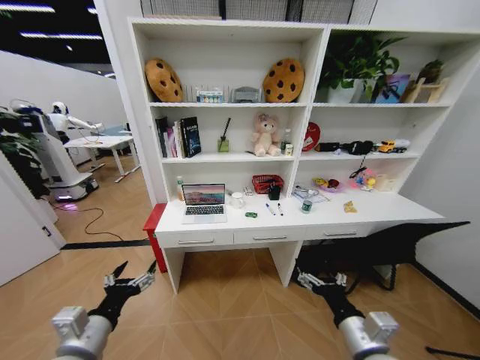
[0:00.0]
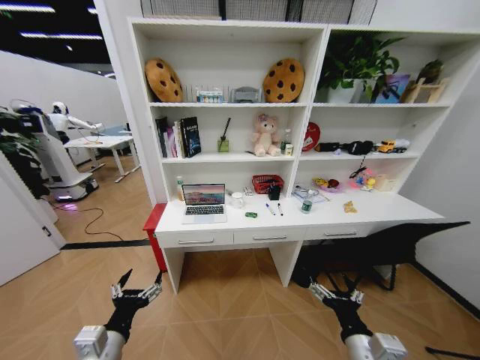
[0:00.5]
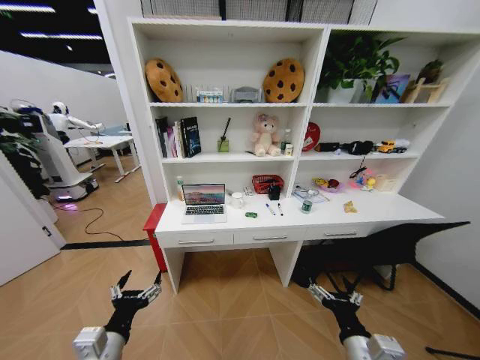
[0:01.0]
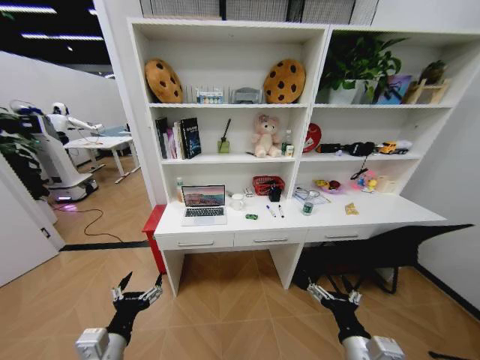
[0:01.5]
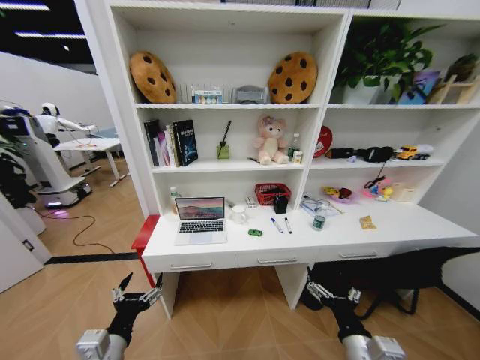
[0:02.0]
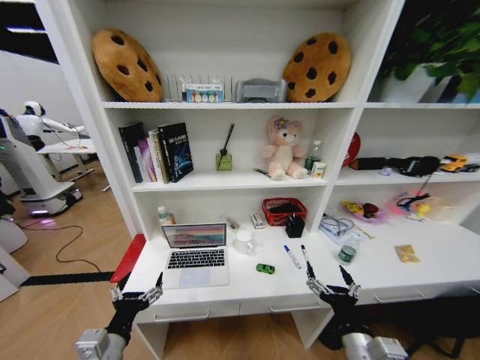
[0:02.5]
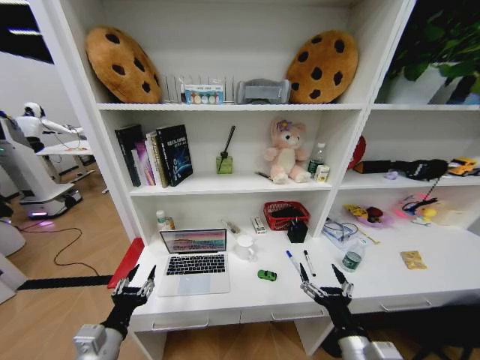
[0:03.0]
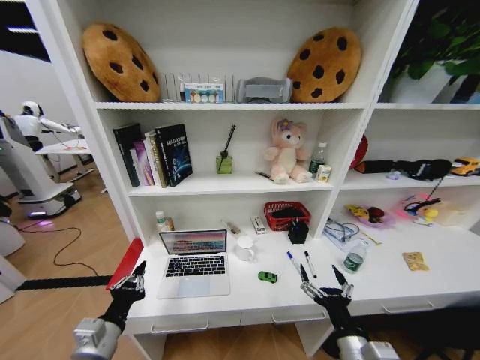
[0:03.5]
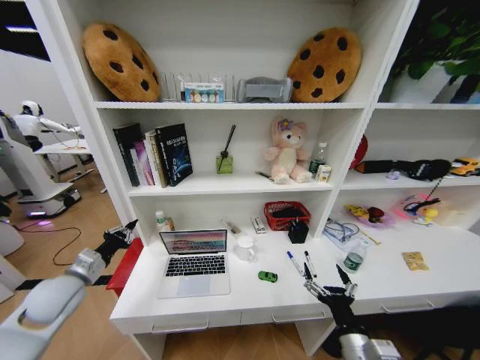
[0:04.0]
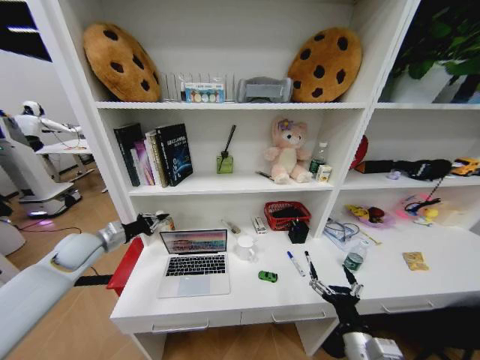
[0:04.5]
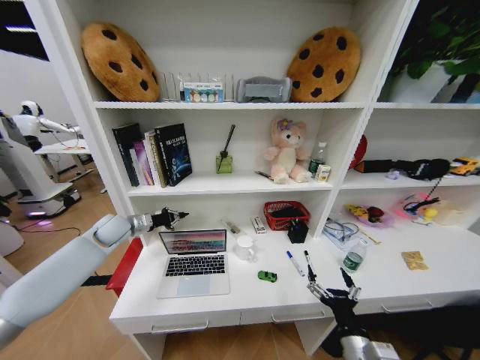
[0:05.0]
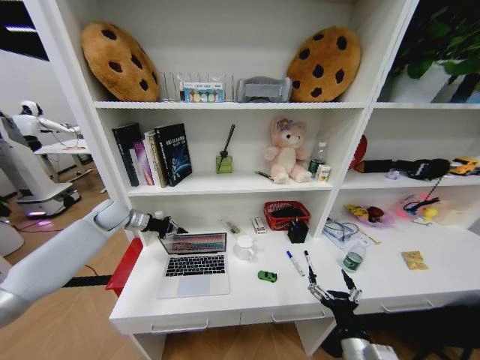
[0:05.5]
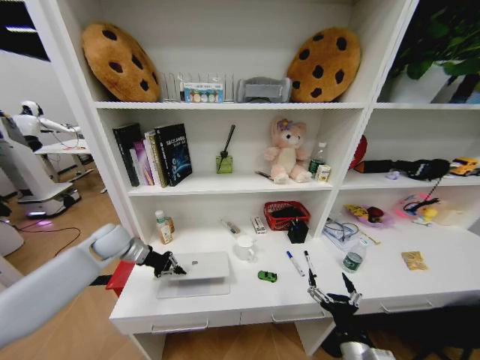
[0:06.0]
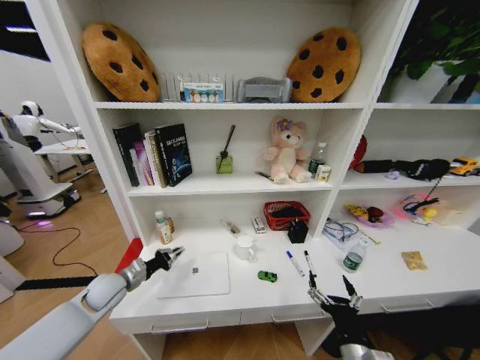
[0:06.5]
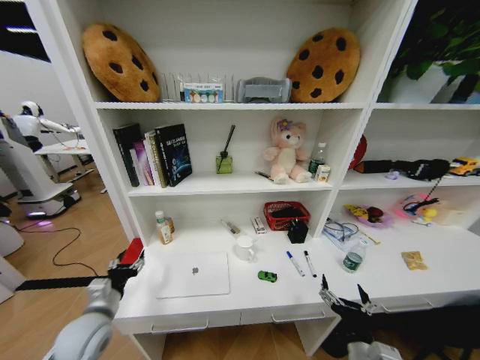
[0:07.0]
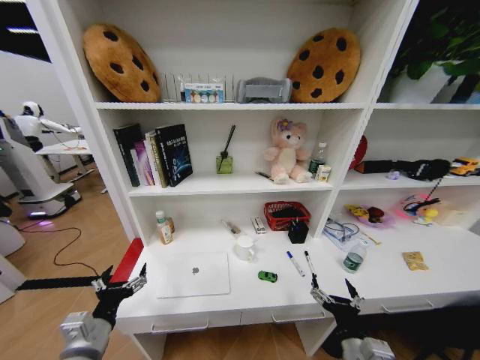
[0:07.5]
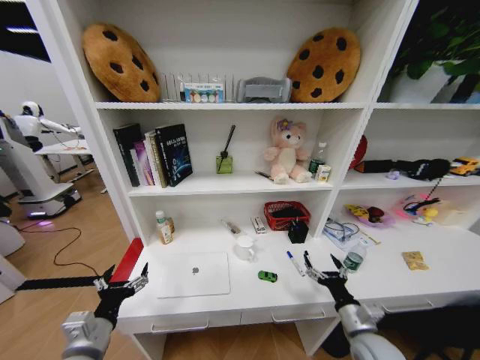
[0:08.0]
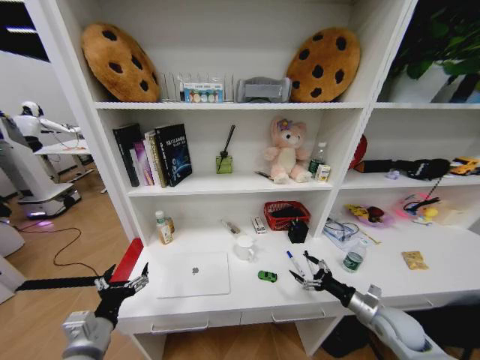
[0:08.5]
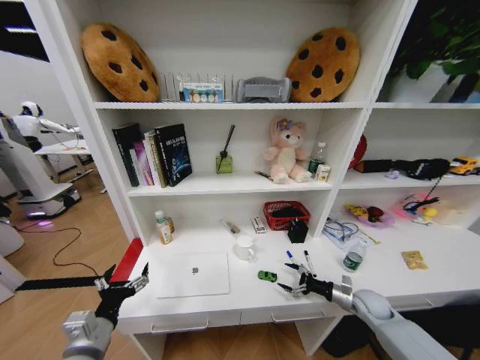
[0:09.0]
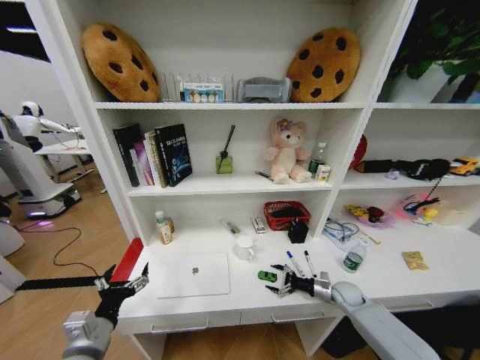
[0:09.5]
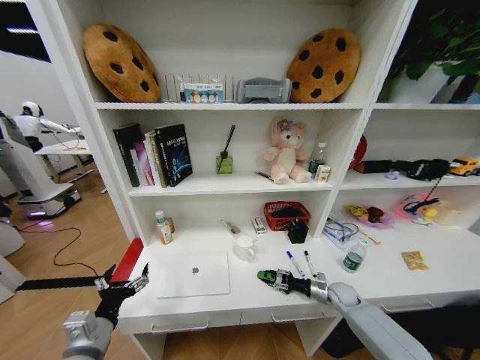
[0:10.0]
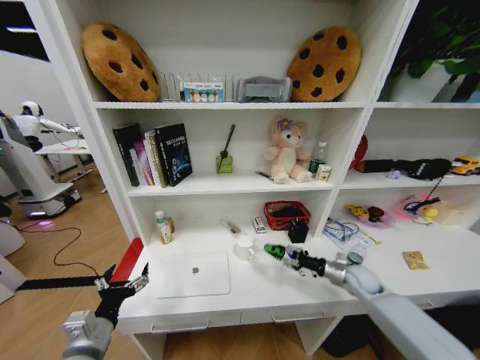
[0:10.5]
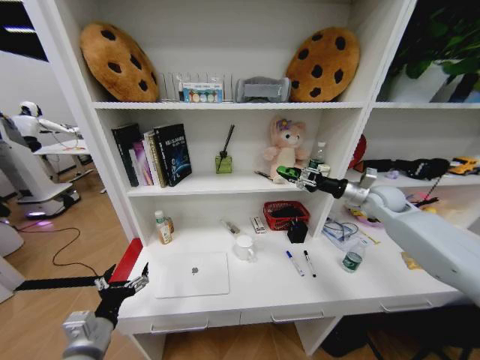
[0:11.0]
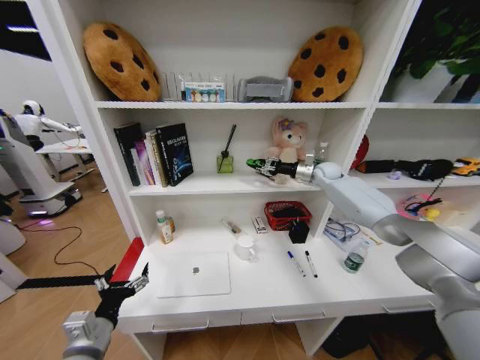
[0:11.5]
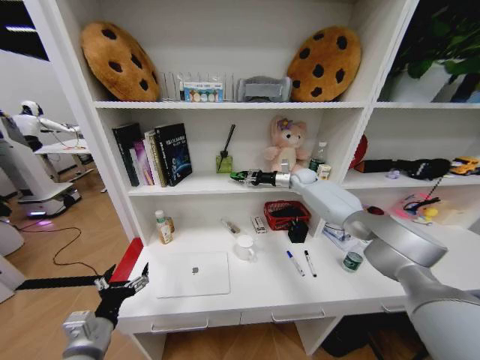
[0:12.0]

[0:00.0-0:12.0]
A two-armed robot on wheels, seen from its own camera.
Task of the whole recording: Organize the objects on the table.
0:02.0 to 0:04.0: The left gripper heads forward and to the left, covering some 20 cm, and closes up.
0:04.0 to 0:06.0: The left gripper goes approximately 20 cm forward.
0:06.0 to 0:08.0: The left gripper shifts approximately 30 cm backward, and opens. The right gripper shifts about 10 cm forward and to the right.
0:08.0 to 0:10.0: The right gripper travels forward, downward and to the right by roughly 25 cm, and closes.
0:10.0 to 0:12.0: The right gripper moves upward and forward, roughly 40 cm.

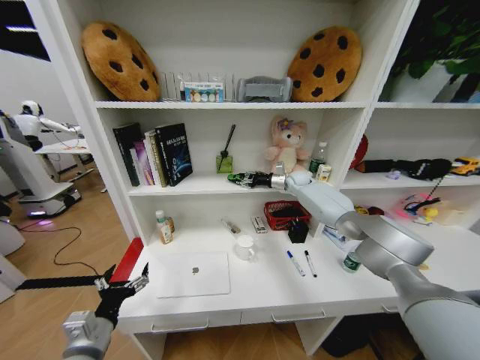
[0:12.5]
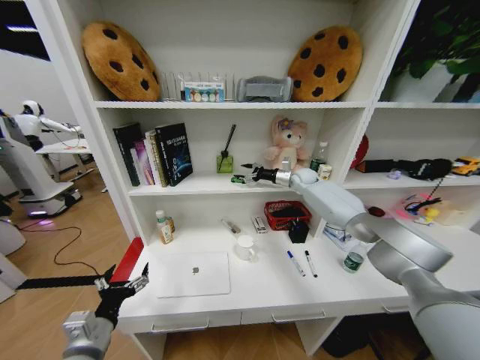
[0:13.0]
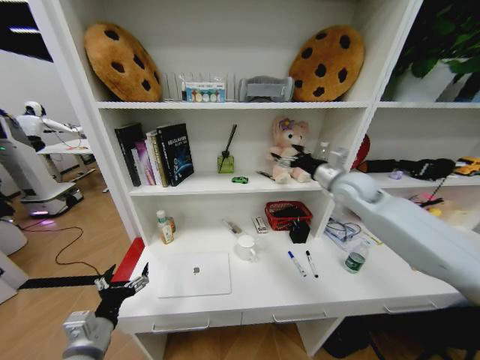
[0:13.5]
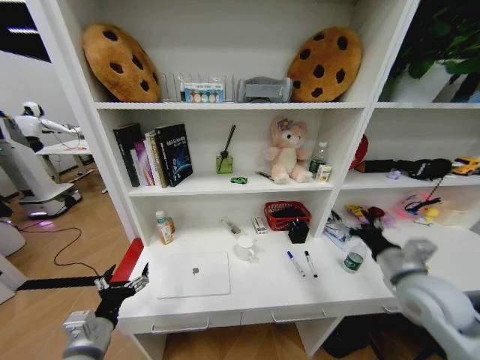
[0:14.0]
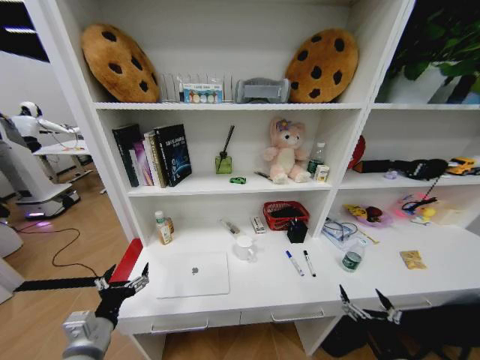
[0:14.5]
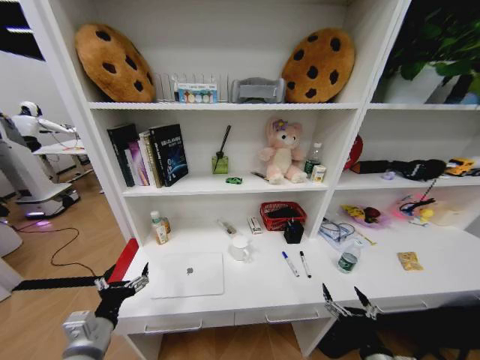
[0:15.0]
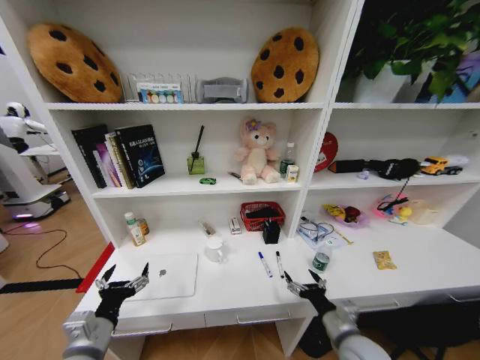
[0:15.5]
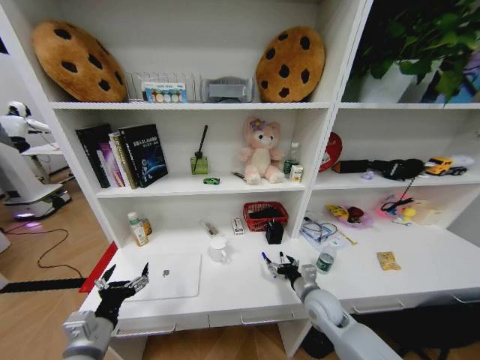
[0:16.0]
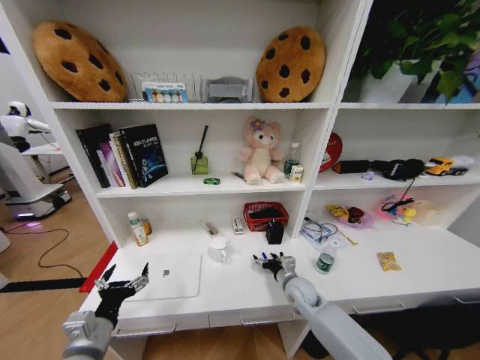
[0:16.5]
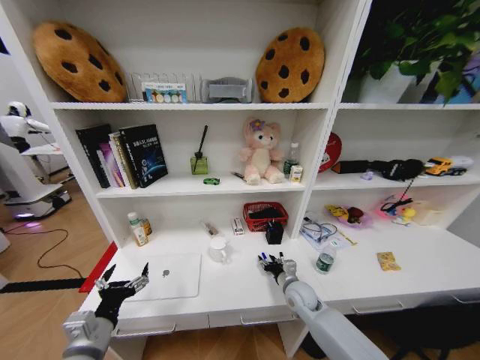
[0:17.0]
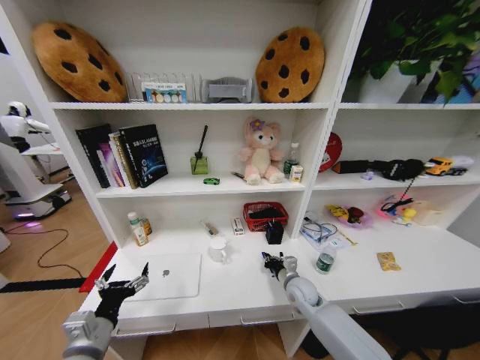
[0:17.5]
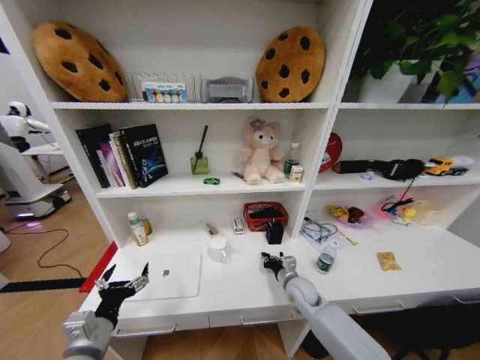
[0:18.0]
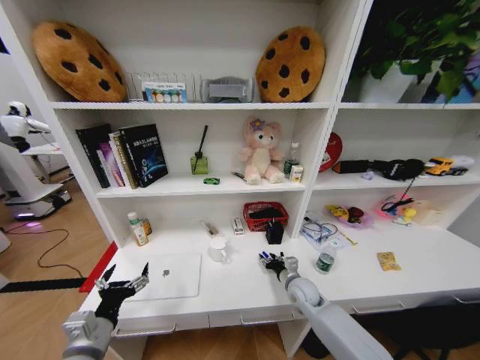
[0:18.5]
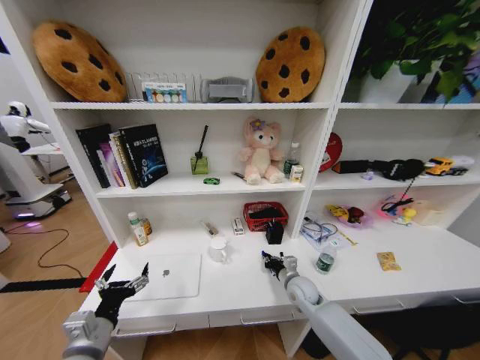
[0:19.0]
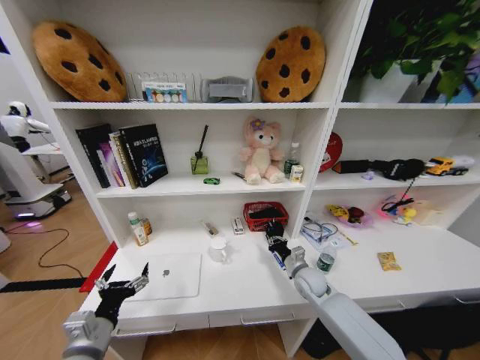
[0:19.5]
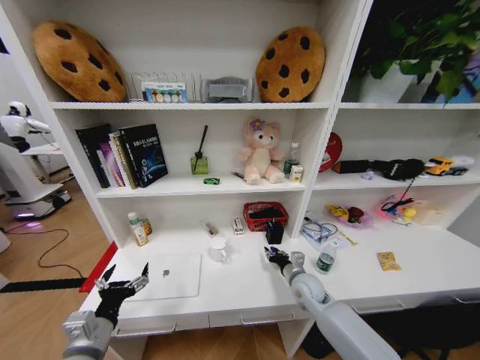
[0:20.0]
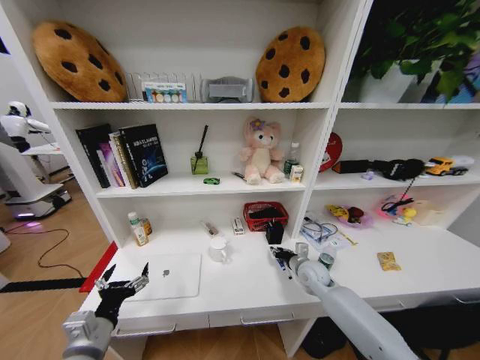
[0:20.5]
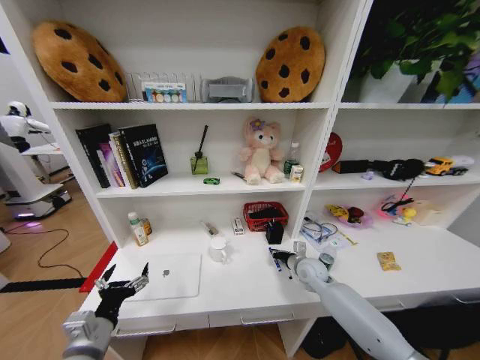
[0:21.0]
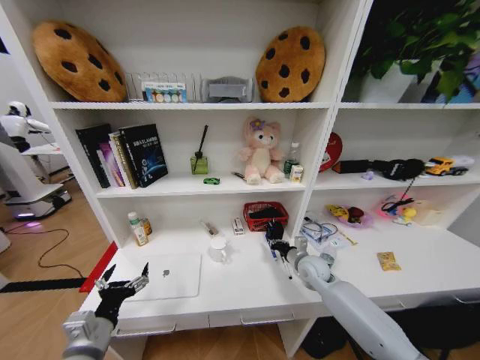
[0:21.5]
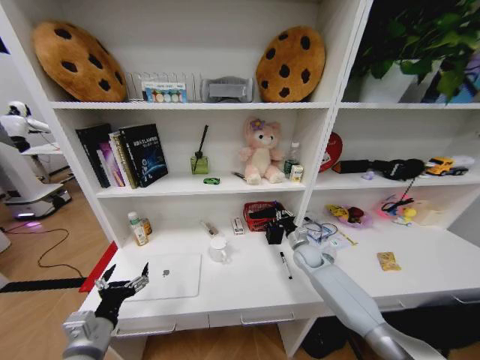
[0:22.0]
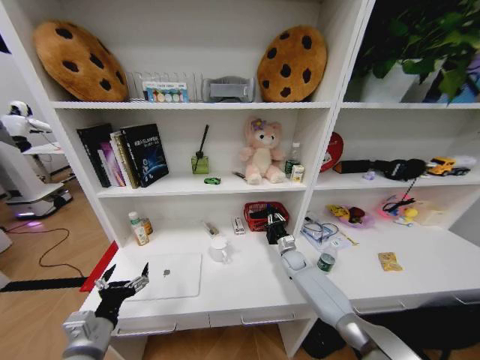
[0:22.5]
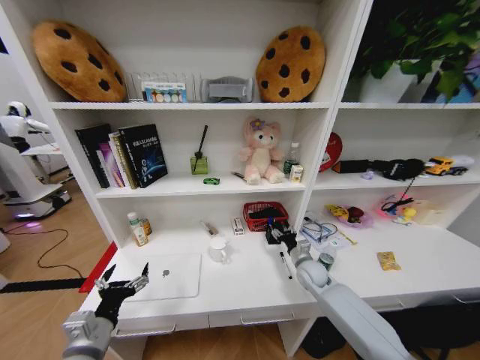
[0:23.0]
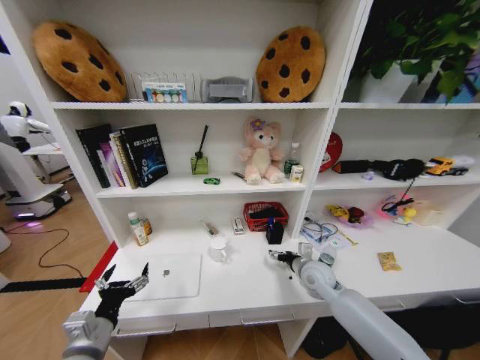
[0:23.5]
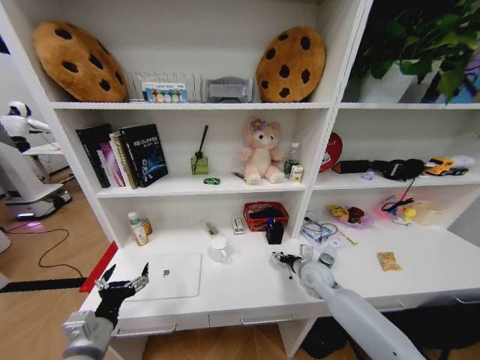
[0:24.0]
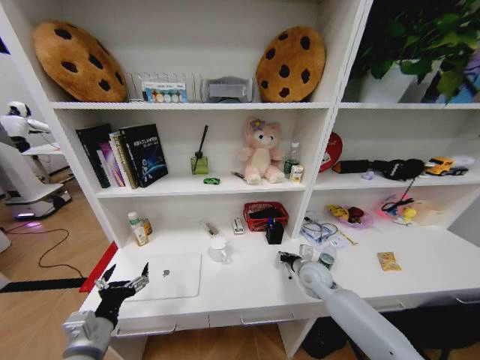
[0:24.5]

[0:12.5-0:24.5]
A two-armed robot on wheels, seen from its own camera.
Task of the whole recording: Organize the objects on the table.
0:12.5 to 0:14.5: The right gripper travels backward by approximately 60 cm, and opens.
0:14.5 to 0:16.5: The right gripper is displaced forward and to the left by roughly 30 cm.
0:16.5 to 0:18.5: The right gripper closes its fingers.
0:18.5 to 0:20.5: The right gripper moves some 5 cm, and closes, then reopens.
0:20.5 to 0:22.5: The right gripper moves forward and downward, approximately 15 cm.
0:22.5 to 0:24.5: The right gripper moves backward and upward, about 15 cm, and opens and closes again.

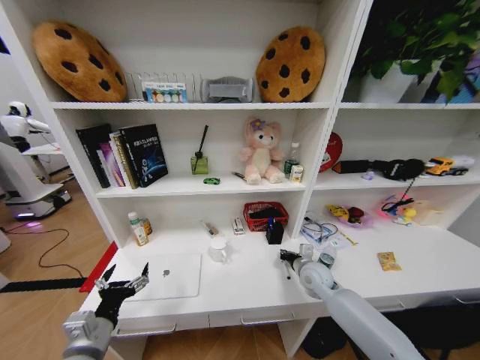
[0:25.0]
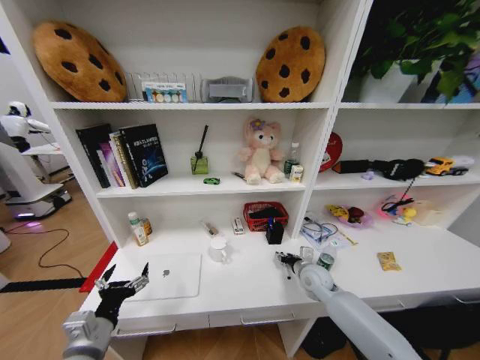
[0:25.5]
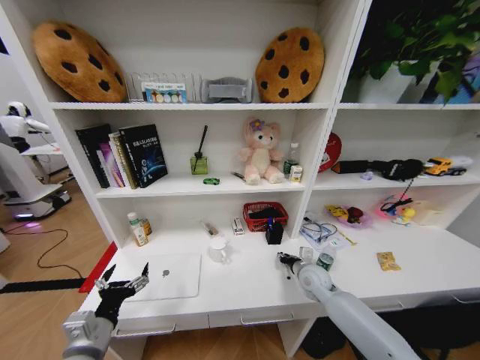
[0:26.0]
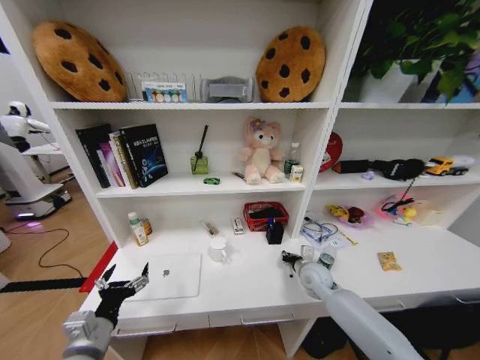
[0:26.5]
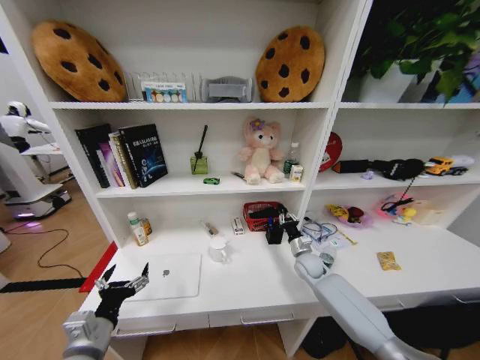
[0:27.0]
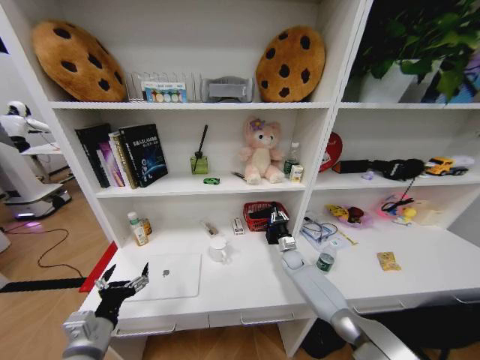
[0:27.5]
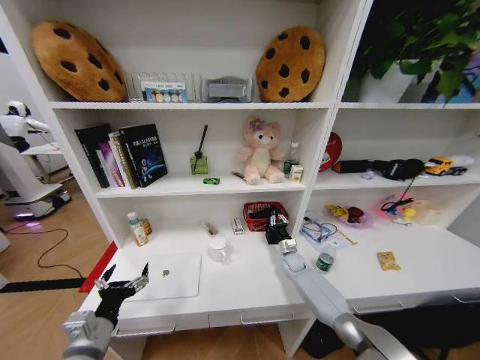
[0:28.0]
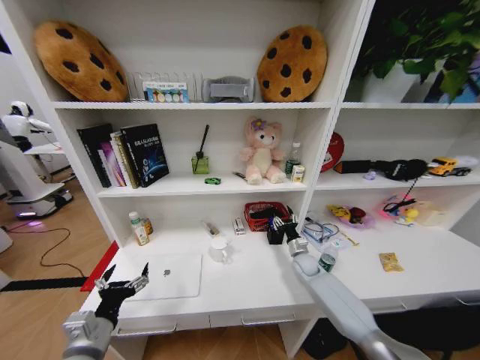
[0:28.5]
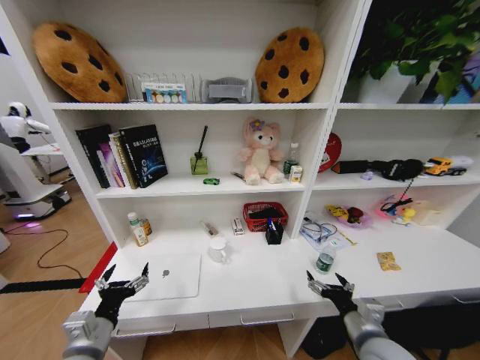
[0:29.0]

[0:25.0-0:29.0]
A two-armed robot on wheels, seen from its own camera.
Task of the whole recording: Organize the objects on the table.
0:25.0 to 0:27.0: The right gripper heads forward, covering approximately 5 cm, and opens, then closes once more.
0:27.0 to 0:29.0: The right gripper heads backward, covering some 30 cm, and opens its fingers.
